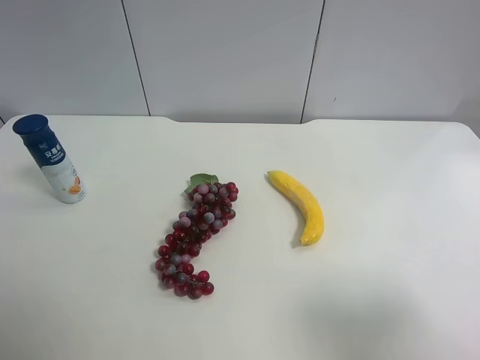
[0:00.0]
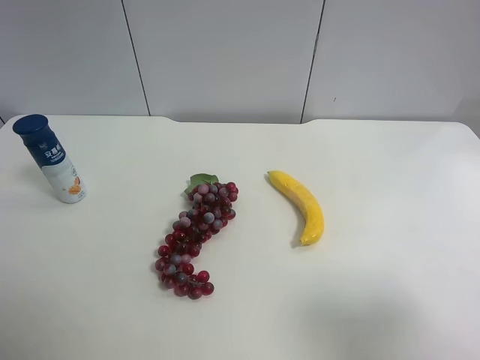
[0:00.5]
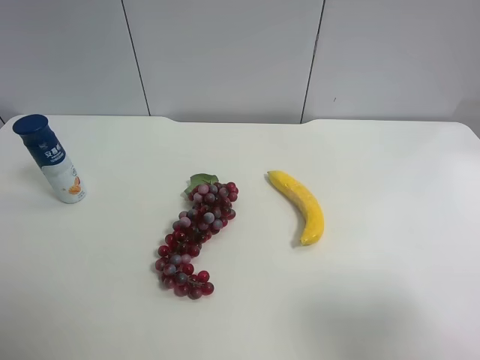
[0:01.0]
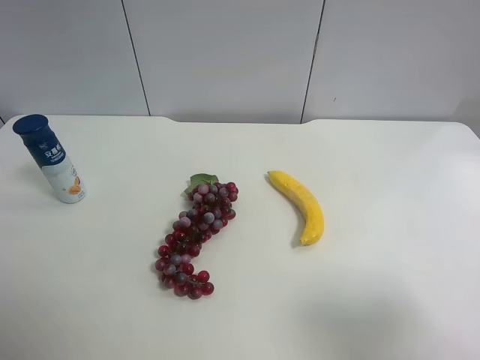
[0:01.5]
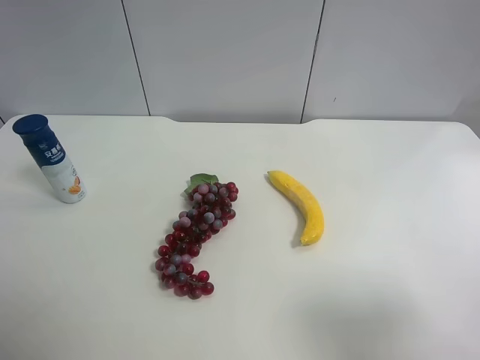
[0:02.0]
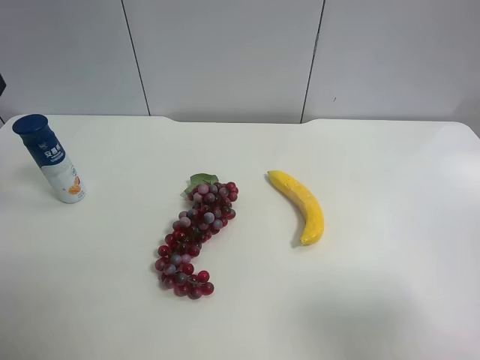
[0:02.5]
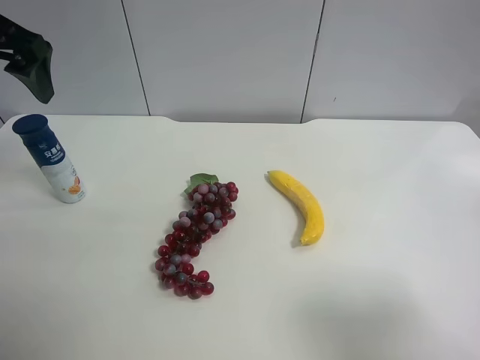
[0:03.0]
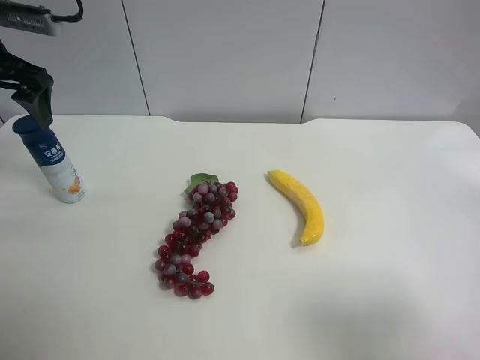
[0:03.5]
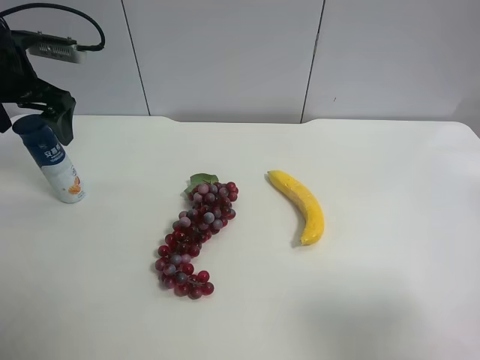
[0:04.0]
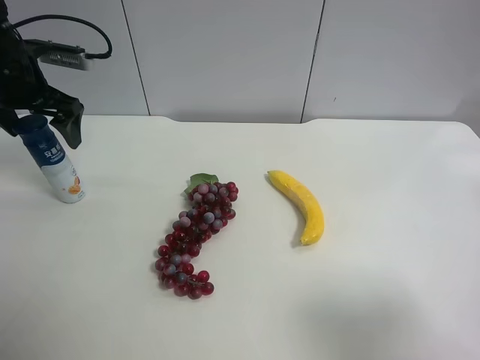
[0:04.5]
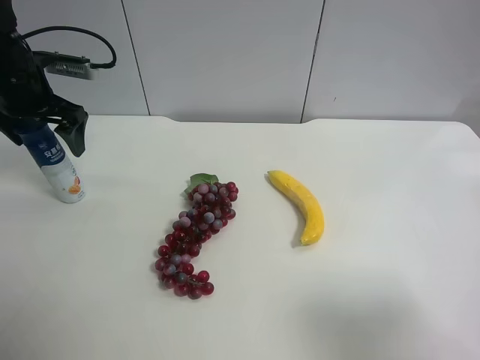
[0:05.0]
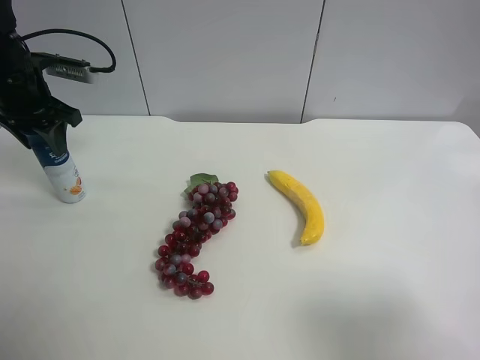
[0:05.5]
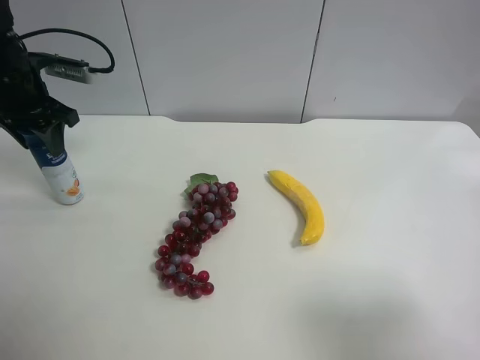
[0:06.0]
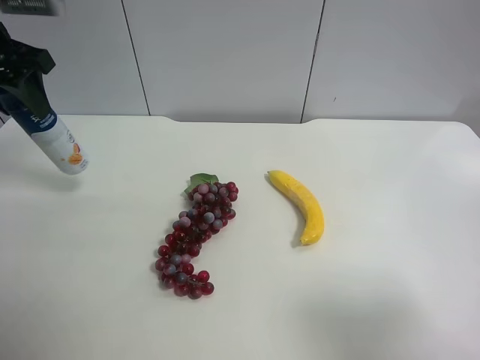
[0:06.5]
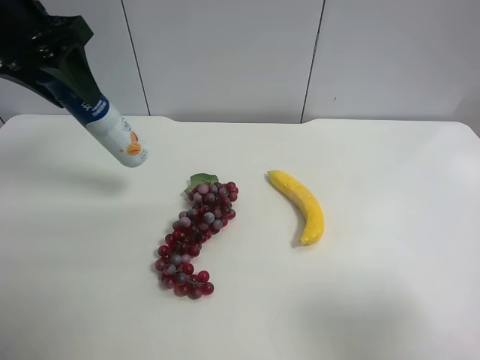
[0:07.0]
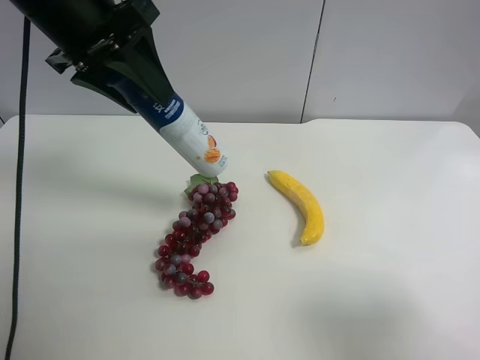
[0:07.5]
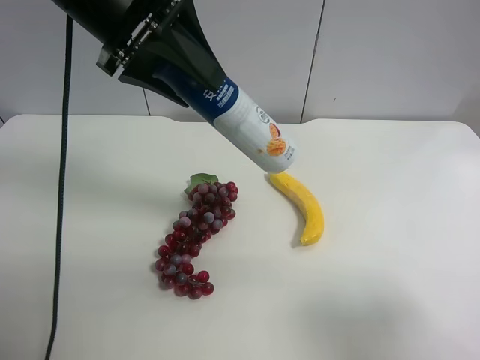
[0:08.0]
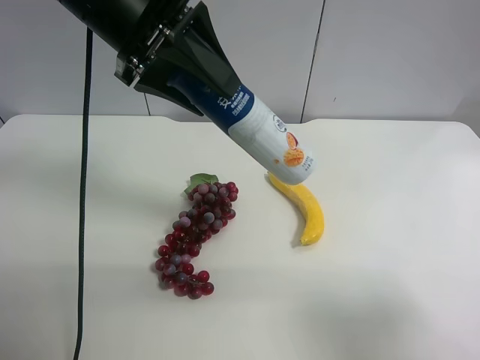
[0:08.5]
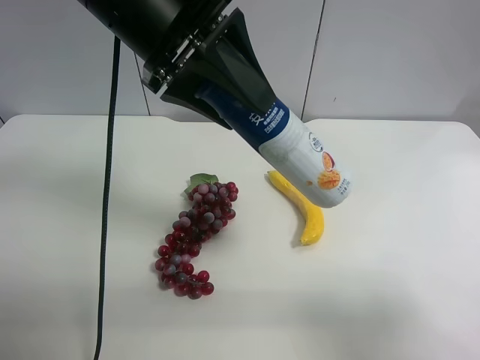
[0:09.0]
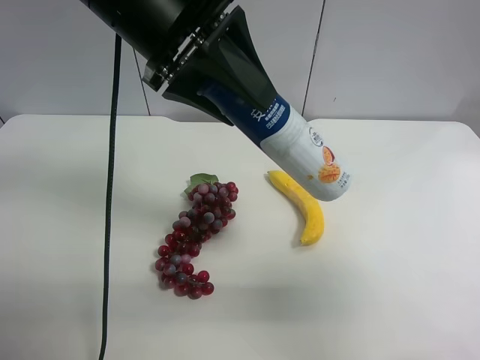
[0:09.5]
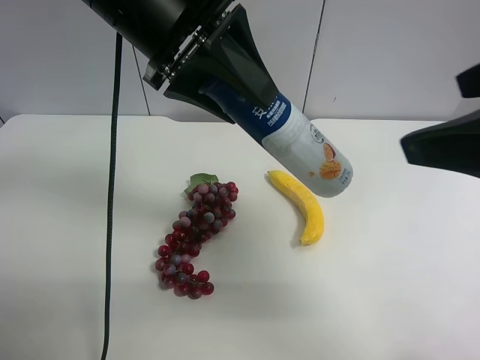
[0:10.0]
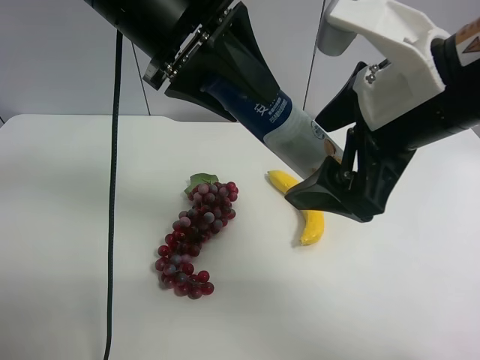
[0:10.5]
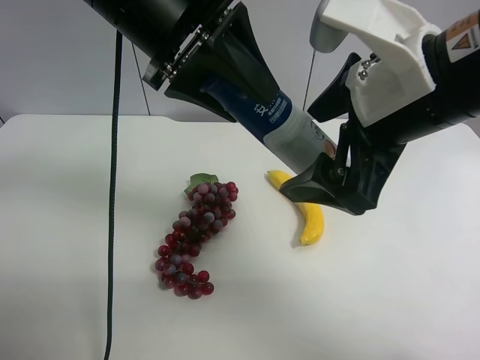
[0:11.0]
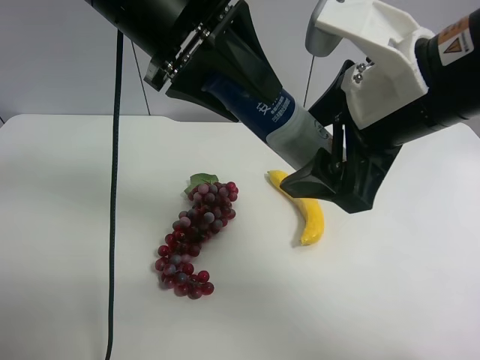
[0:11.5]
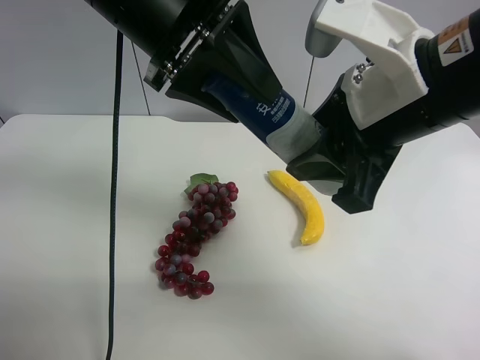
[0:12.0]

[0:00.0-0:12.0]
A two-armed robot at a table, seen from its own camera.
Task of the whole recording: use the left gripper to pick up the item and transfer it from the left gripper to the right gripper.
0:02.0 to 0:04.0: The left gripper moves forward and downward, approximately 30 cm.
0:04.0 to 0:06.0: The left gripper closes up.
0:06.0 to 0:08.0: The left gripper shifts approximately 25 cm to the right, upward and backward.
0:08.0 to 0:10.0: The right gripper heads forward, to the left and upward, covering roughly 15 cm.
0:10.0 to 0:12.0: The right gripper shifts some 10 cm to the left and forward, and closes up.

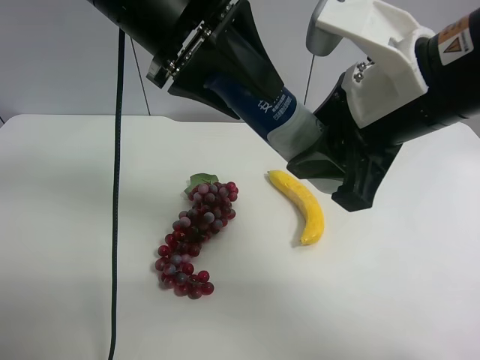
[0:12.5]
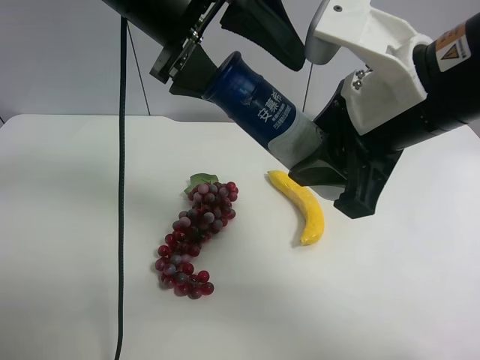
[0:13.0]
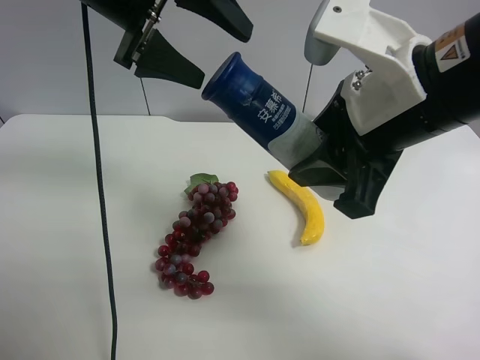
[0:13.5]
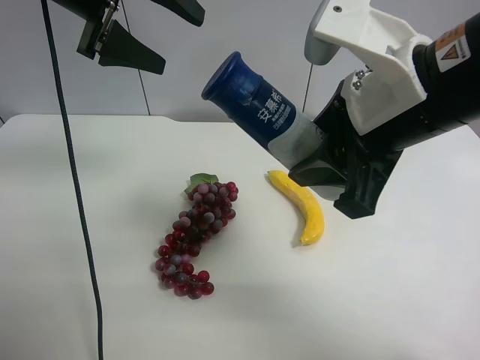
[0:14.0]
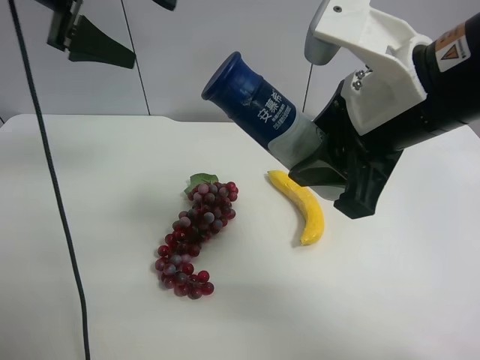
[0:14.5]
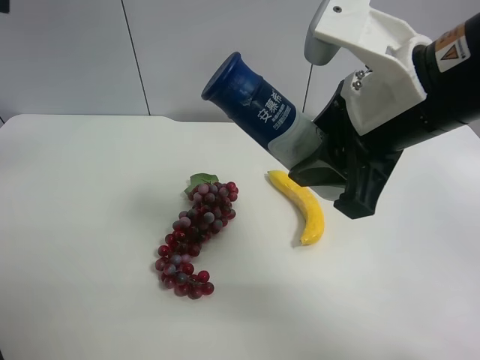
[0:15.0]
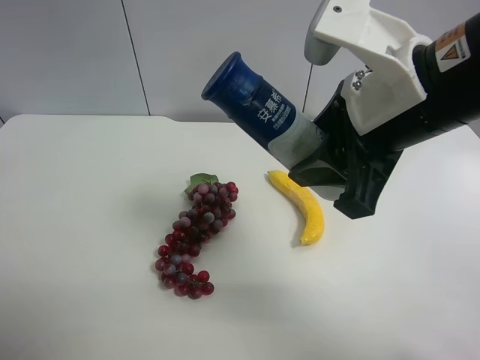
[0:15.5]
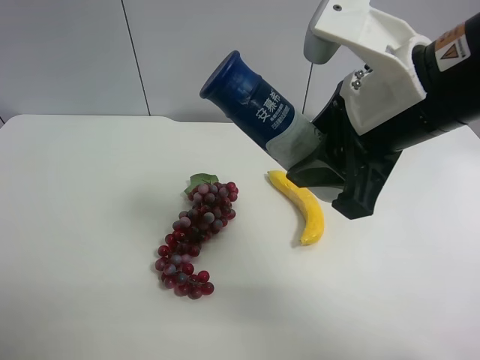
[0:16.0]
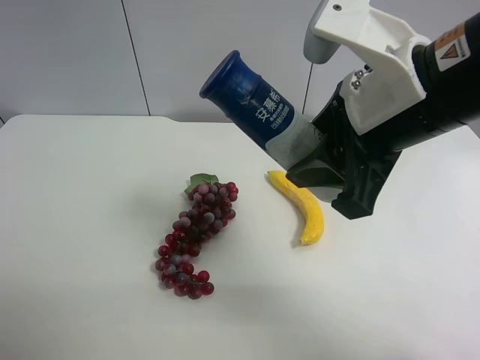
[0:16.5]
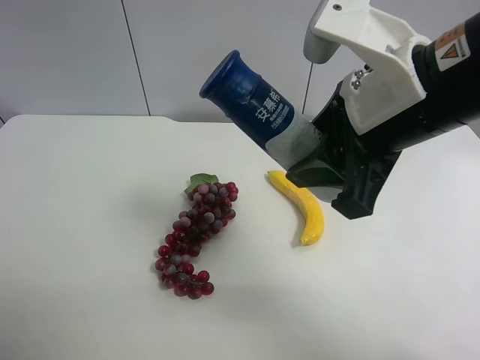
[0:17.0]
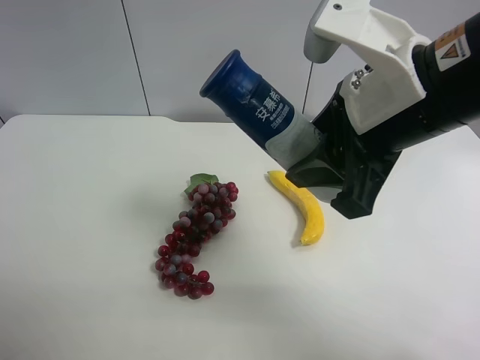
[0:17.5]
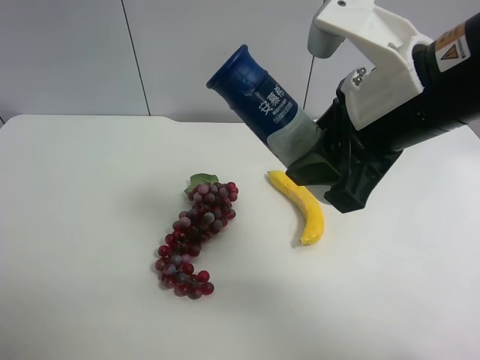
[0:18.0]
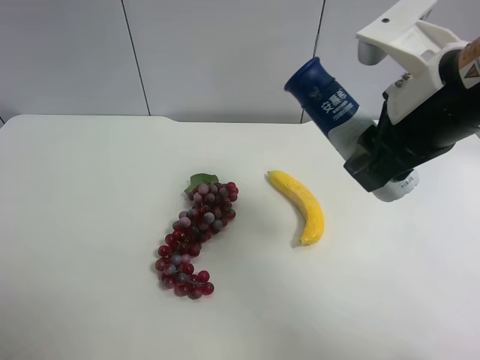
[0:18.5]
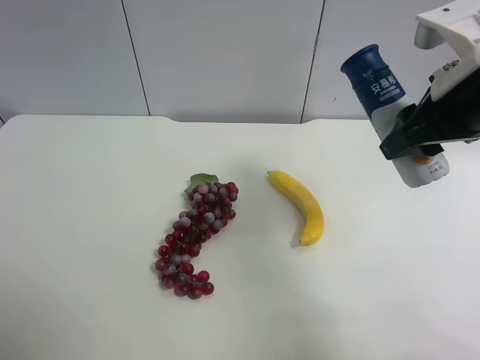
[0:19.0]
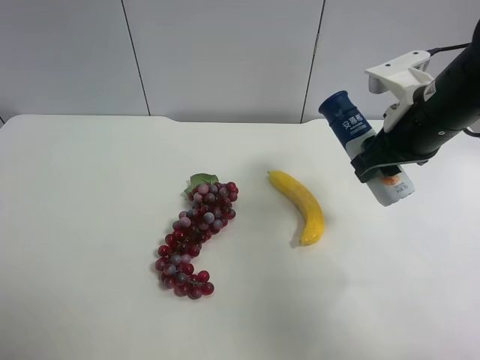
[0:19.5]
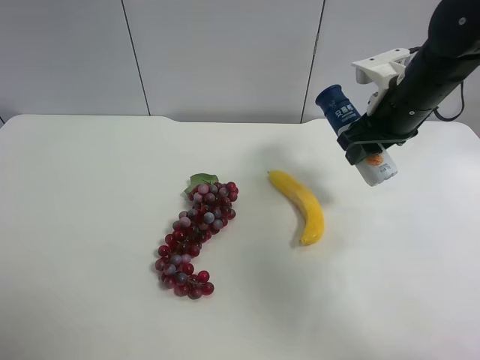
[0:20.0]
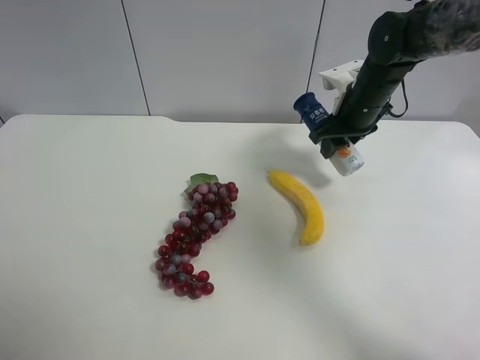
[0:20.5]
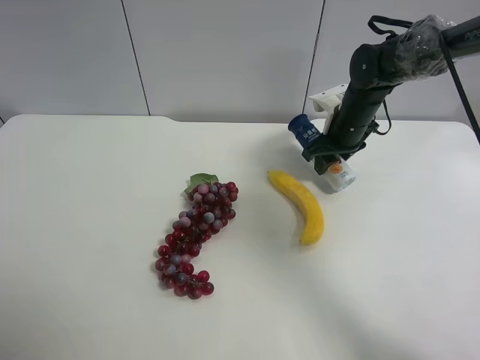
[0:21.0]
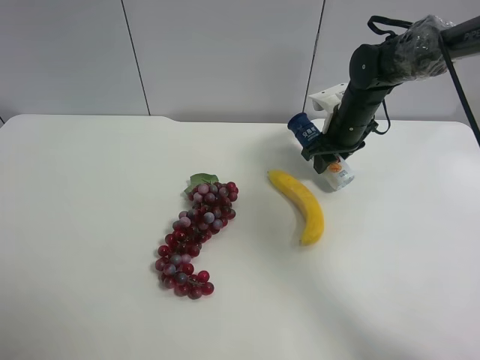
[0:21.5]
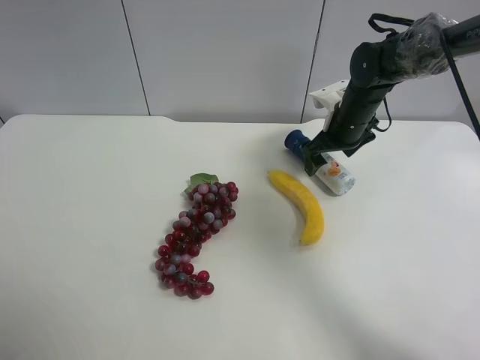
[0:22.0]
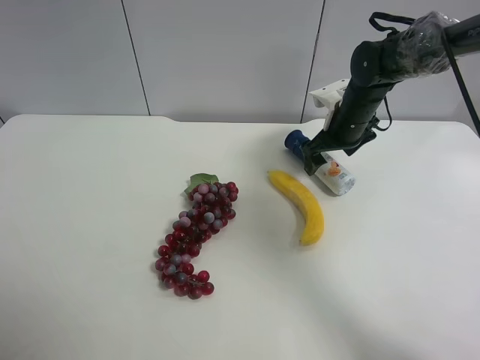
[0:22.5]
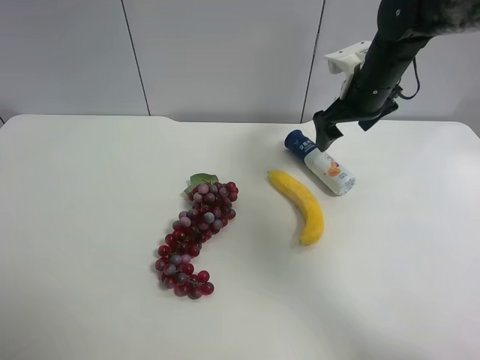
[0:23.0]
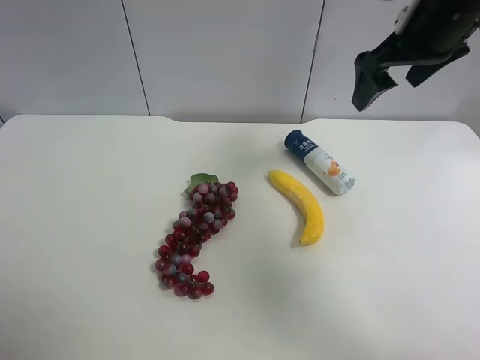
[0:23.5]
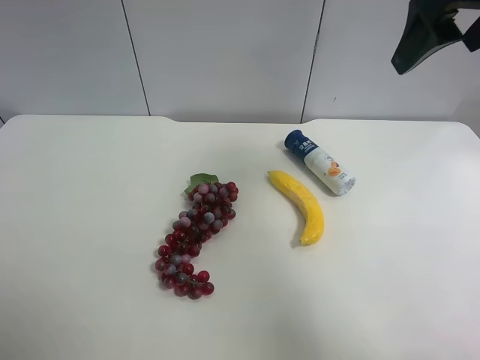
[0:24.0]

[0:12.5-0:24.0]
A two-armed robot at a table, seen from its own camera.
Task of the whole recording: use the left gripper to pick up the item and transfer it from the left gripper to the right gripper.
0:12.5 to 0:14.5: The left gripper is displaced to the left and forward by about 15 cm, and opens.
0:14.5 to 0:16.5: The left gripper shifts some 35 cm backward.
0:16.5 to 0:18.5: The left gripper moves about 5 cm.
0:18.5 to 0:20.0: The right gripper goes some 15 cm forward and downward.
0:20.0 to 0:22.0: The right gripper moves forward and downward, roughly 10 cm, and opens up.
0:22.0 to 0:24.0: The right gripper travels upward and backward by some 30 cm.

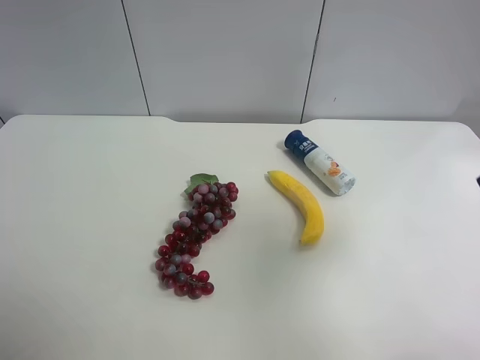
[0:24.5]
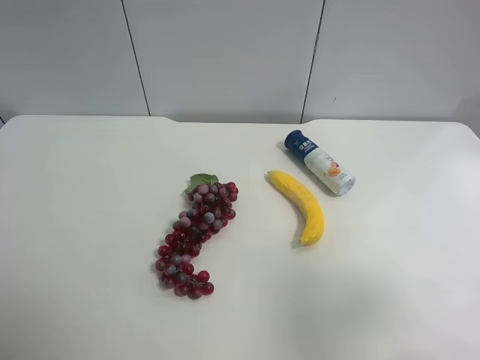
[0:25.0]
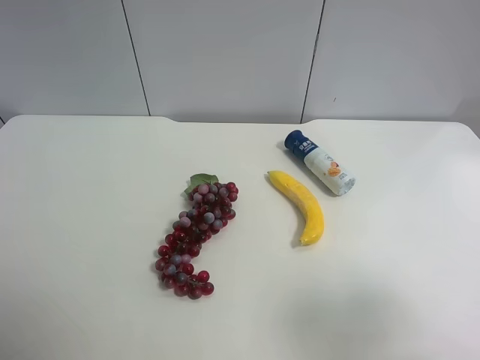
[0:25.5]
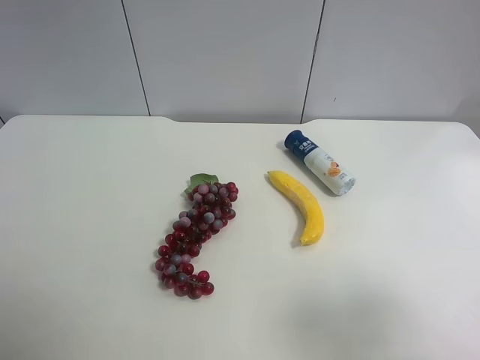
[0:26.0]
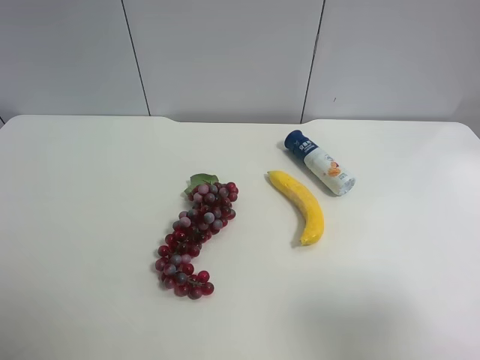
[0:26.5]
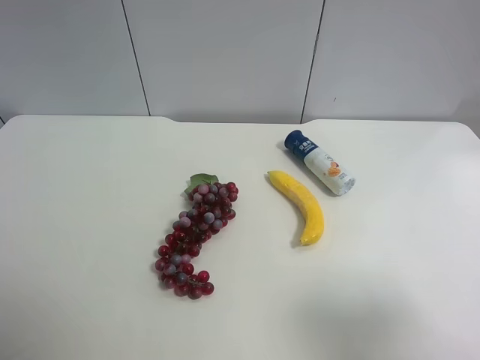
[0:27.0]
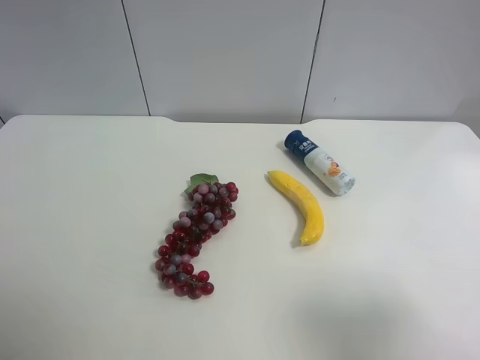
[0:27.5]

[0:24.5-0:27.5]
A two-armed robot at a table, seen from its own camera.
Task of the whole recording: use the left gripper to pick up the item and transfer it from the left gripper to the right gripper.
0:24.5 to 0:26.0: The right gripper shifts some 15 cm backward and downward.
